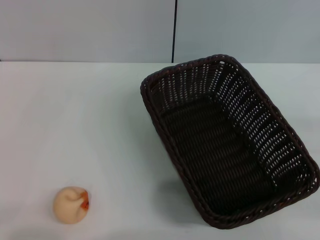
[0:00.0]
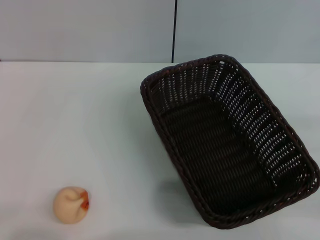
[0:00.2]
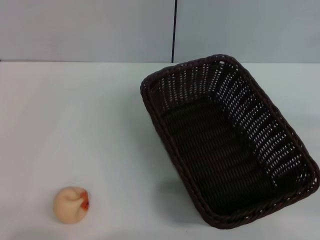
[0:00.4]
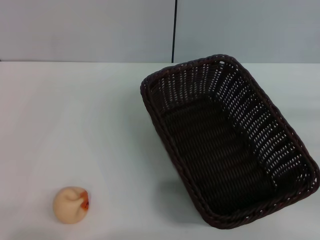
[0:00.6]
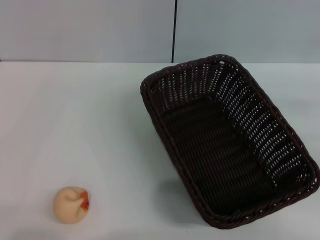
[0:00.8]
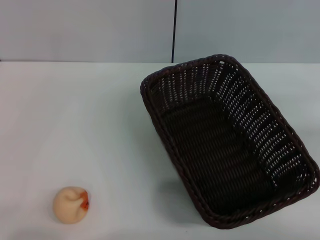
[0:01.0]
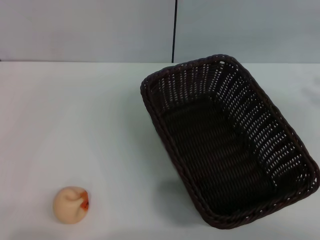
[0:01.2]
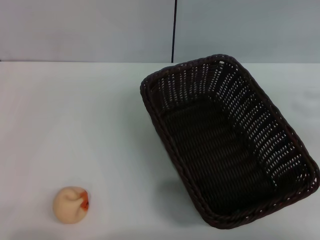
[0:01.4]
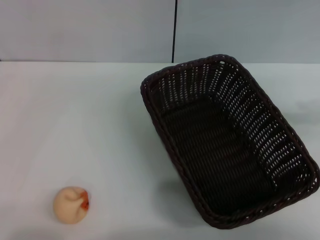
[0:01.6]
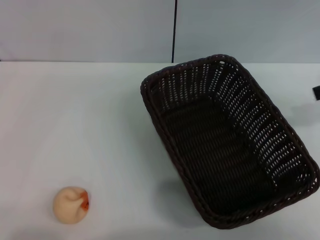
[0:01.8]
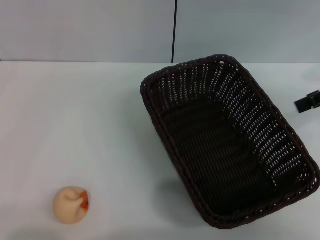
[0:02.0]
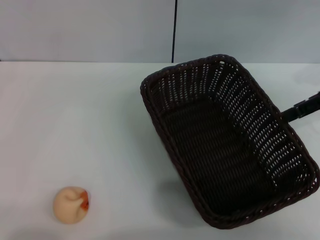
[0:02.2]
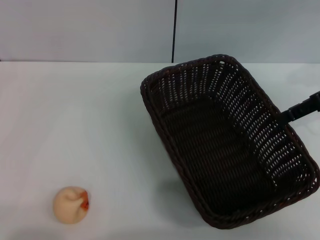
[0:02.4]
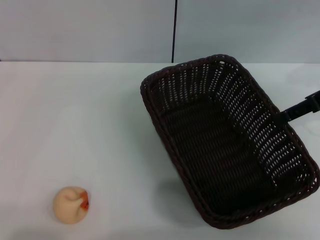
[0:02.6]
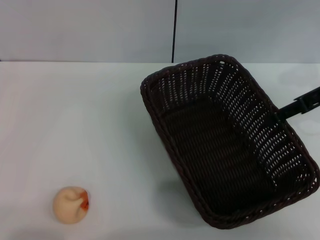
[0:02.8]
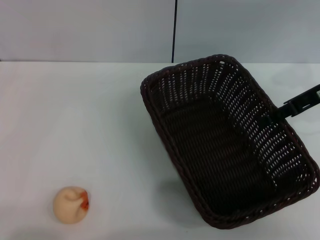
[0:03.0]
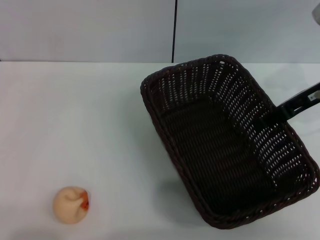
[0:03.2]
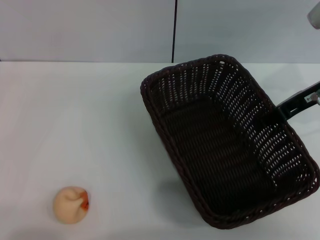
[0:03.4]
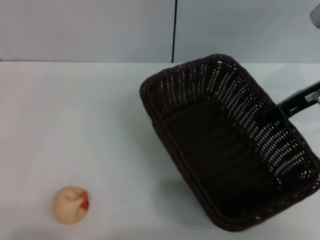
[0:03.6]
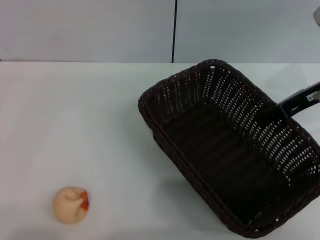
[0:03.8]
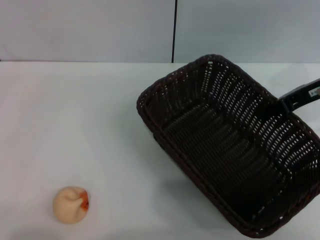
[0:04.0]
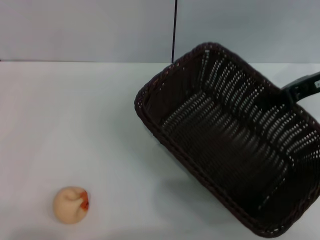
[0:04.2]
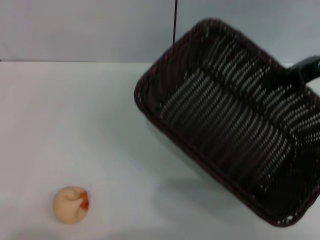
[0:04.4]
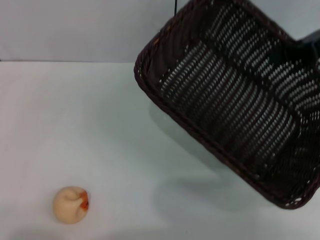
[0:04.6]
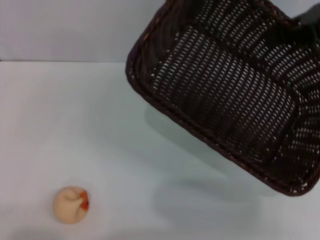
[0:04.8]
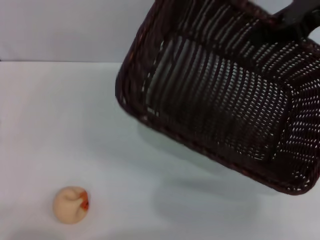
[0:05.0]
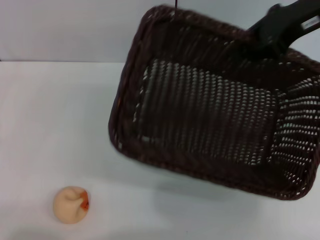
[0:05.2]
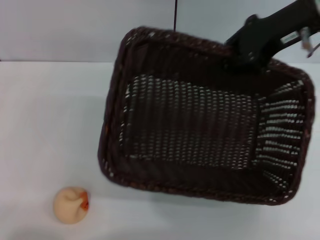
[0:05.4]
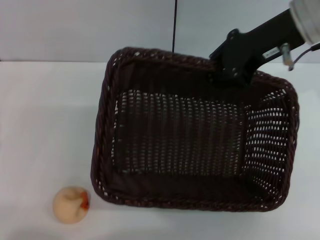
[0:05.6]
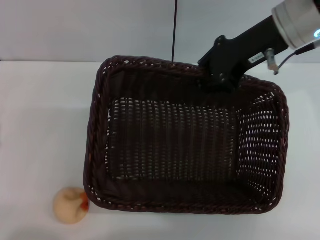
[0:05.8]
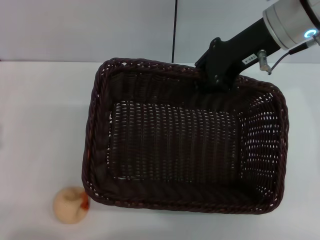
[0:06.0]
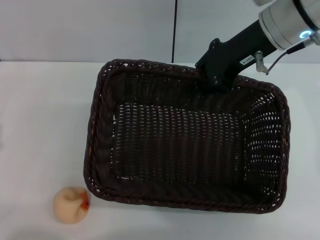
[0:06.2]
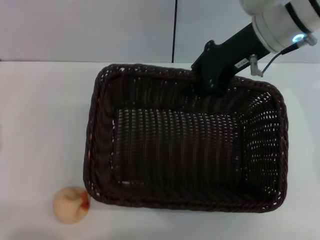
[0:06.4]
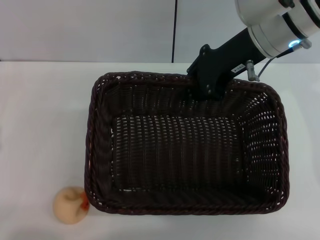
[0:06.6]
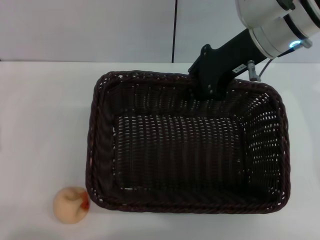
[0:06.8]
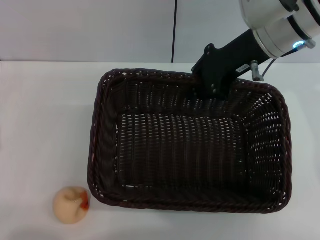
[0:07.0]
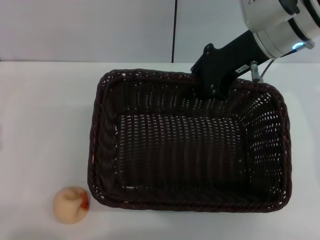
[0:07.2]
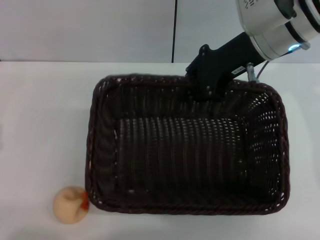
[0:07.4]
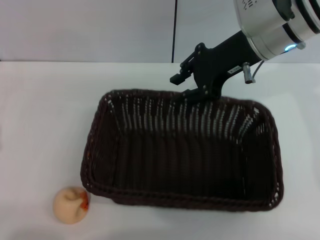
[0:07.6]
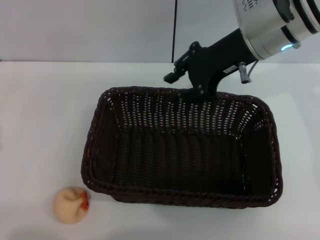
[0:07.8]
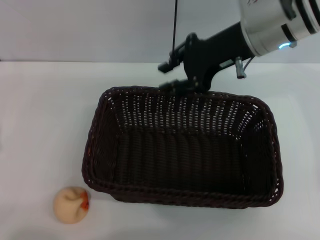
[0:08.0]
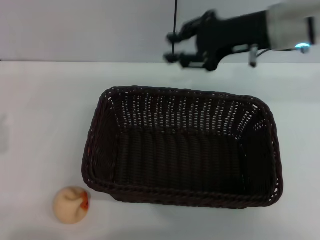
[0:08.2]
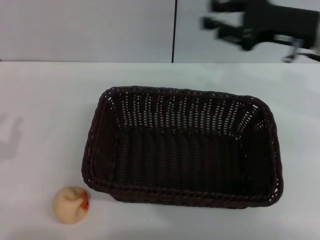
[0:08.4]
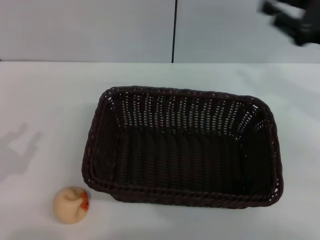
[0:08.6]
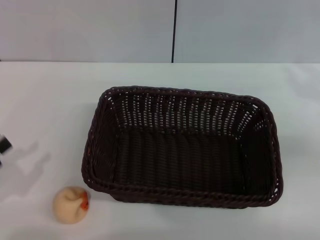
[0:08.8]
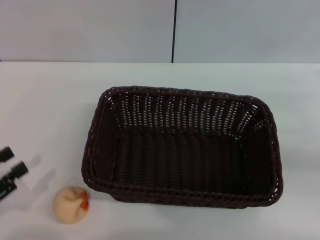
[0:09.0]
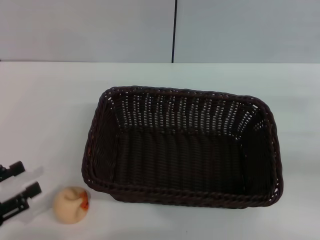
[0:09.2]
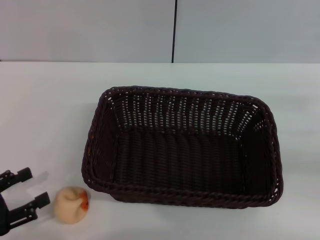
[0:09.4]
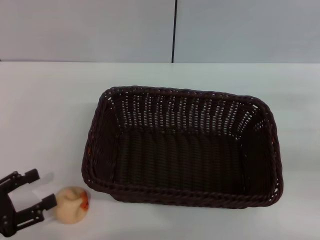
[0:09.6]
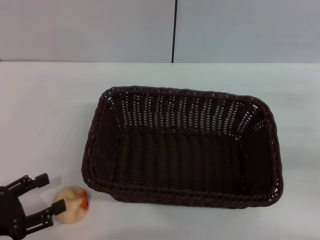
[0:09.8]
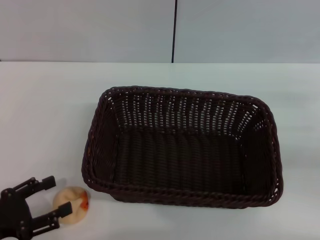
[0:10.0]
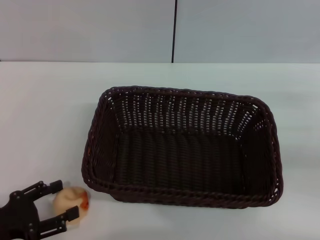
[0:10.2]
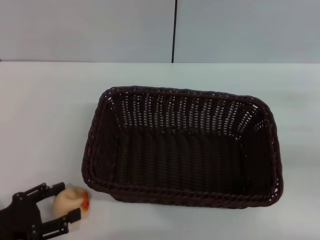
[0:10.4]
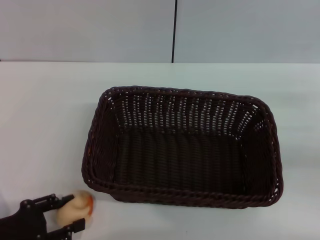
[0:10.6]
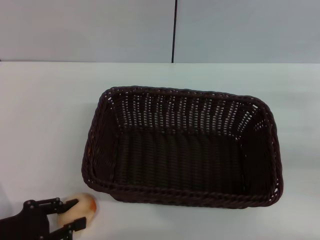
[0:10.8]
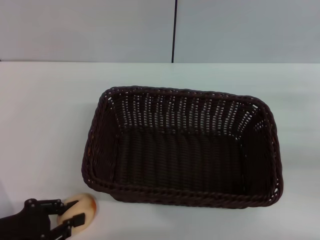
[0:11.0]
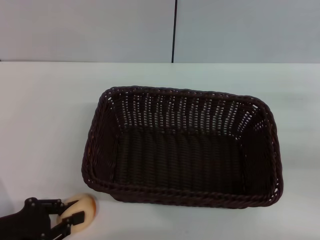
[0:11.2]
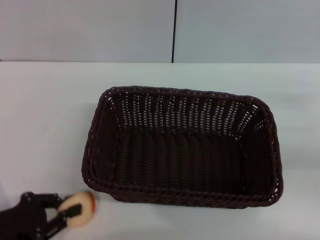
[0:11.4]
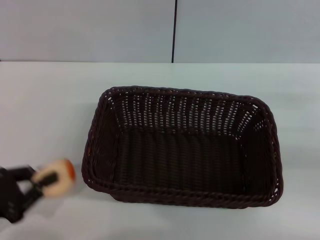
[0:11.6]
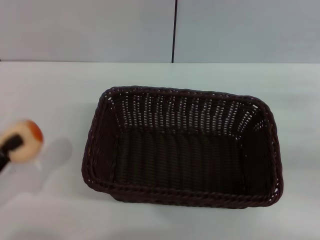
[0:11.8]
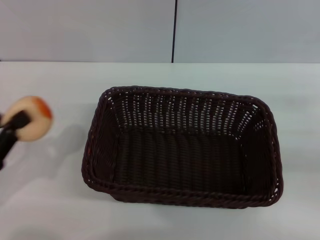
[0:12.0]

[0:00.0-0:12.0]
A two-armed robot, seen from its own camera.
Step, 0:00.0 to 0:08.0: Move the basket to the center of view with the right gripper.
Step, 0:08.2 to 0:11.6: Pick up the egg yolk pastry with the left gripper.
0:00.0 to 0:01.6: The right gripper travels upward and forward by about 20 cm.
0:01.6 to 0:03.0: The right gripper goes roughly 15 cm downward, to the left and forward.
0:03.0 to 0:04.4: The right gripper closes its fingers.
0:04.4 to 0:06.0: The right gripper moves to the left, roughly 15 cm.
0:06.0 to 0:07.6: There are only small adjustments of the grippers.
0:07.6 to 0:09.0: The right gripper goes some 30 cm to the right, backward and downward.
0:09.0 to 0:10.4: The left gripper changes place by some 5 cm, and opens its fingers.
0:10.4 to 0:12.0: The left gripper goes about 5 cm upward, and closes up.

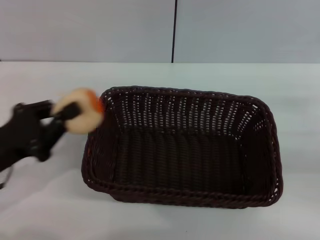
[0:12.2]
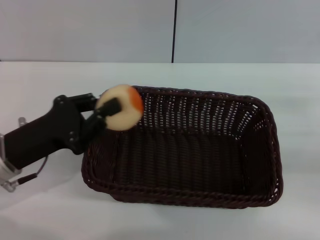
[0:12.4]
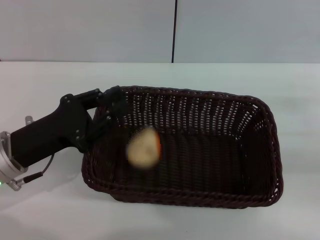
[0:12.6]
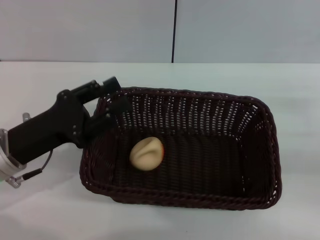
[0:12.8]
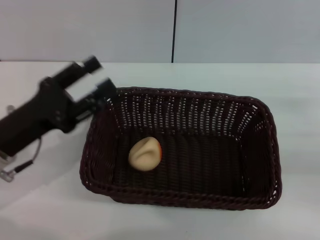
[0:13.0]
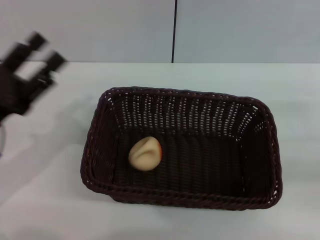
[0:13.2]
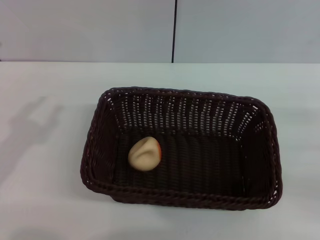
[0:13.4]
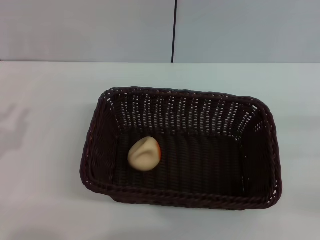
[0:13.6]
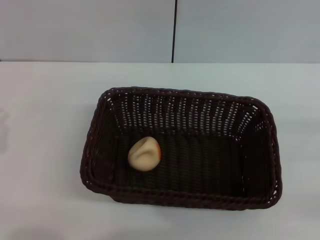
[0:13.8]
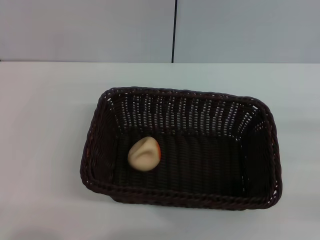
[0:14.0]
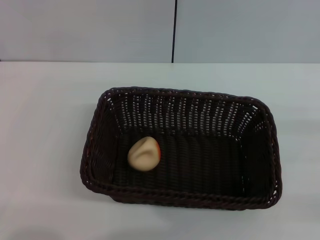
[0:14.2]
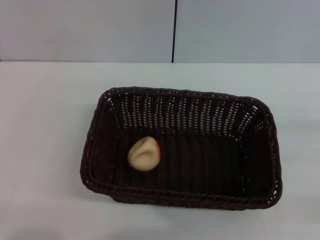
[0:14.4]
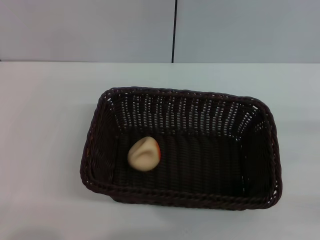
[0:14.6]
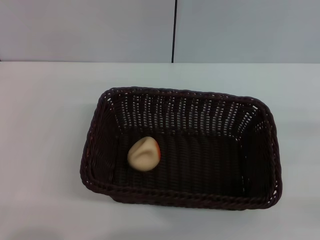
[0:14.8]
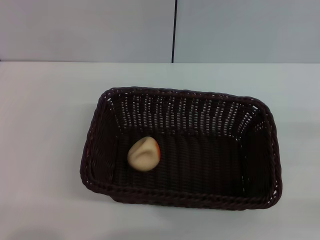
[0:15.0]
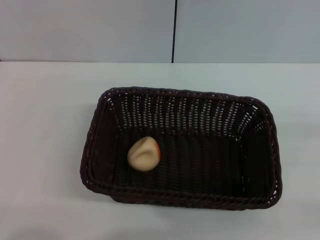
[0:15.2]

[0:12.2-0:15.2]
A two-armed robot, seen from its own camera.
Step, 0:12.2 to 0:12.8: Place the egg yolk pastry into the basket with the left gripper.
0:12.2 to 0:13.8: The left gripper heads to the left and backward, covering some 10 cm, and opens. Meanwhile the right gripper goes roughly 5 cm backward.

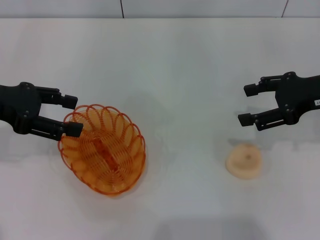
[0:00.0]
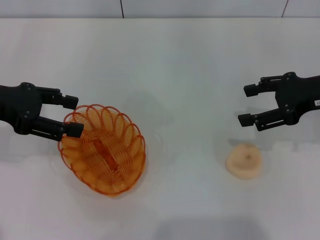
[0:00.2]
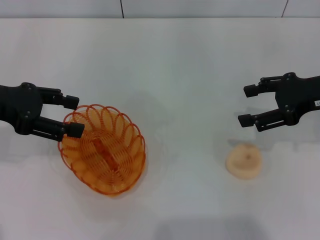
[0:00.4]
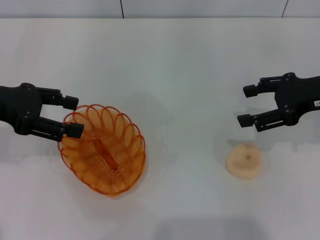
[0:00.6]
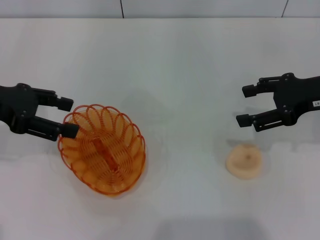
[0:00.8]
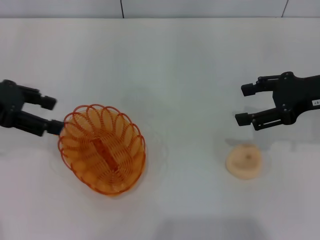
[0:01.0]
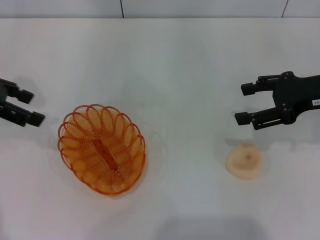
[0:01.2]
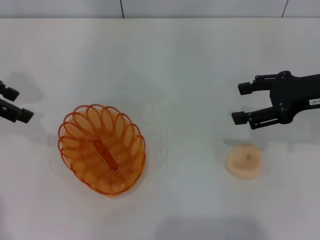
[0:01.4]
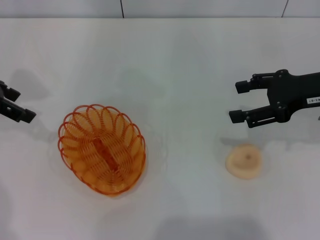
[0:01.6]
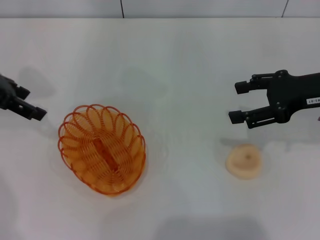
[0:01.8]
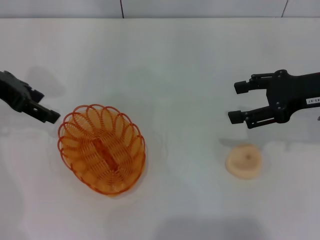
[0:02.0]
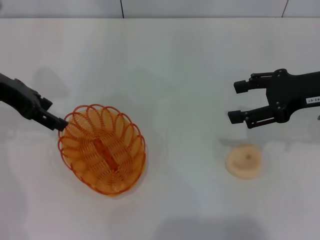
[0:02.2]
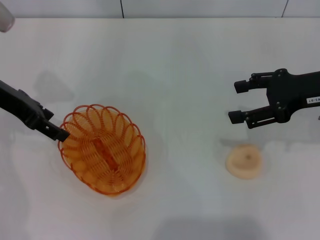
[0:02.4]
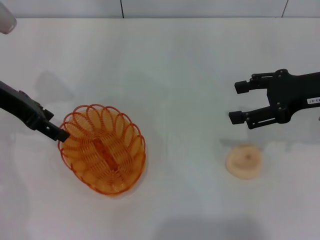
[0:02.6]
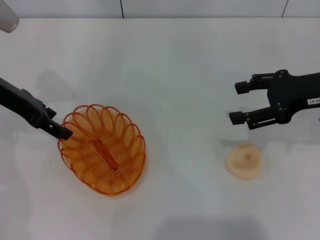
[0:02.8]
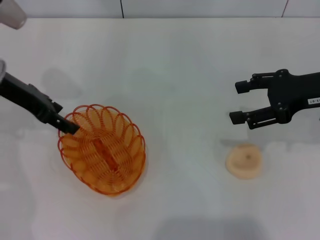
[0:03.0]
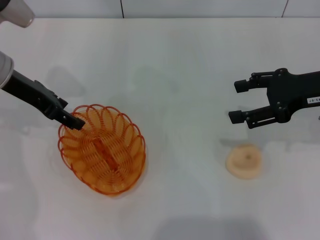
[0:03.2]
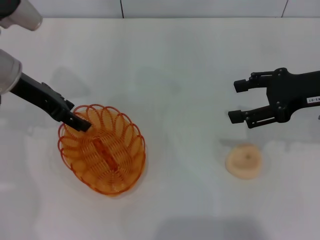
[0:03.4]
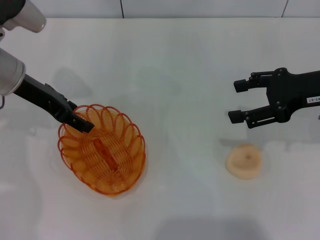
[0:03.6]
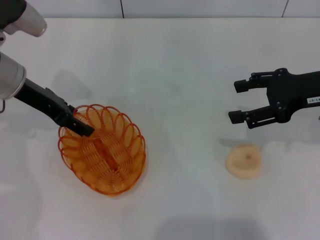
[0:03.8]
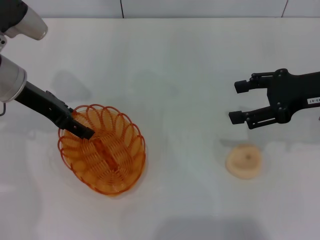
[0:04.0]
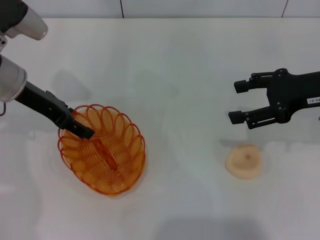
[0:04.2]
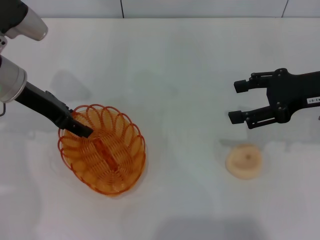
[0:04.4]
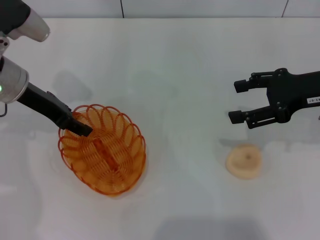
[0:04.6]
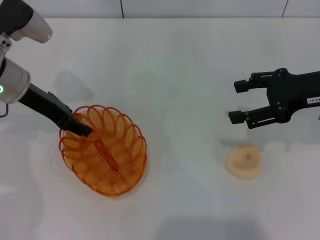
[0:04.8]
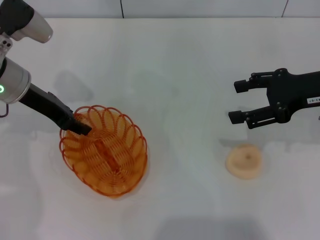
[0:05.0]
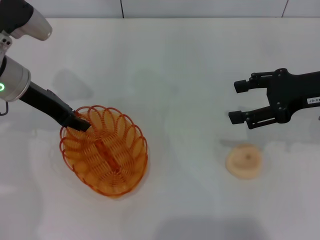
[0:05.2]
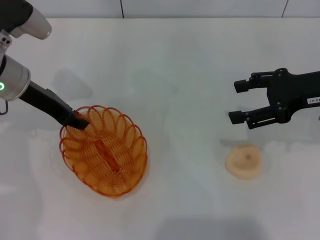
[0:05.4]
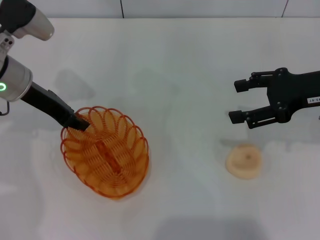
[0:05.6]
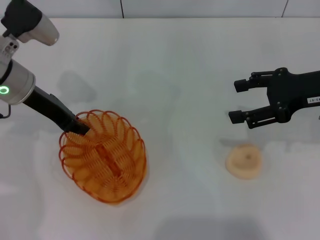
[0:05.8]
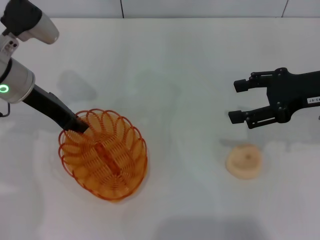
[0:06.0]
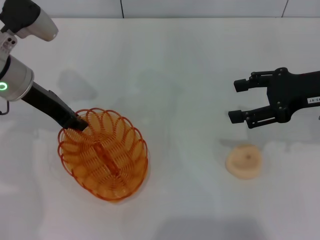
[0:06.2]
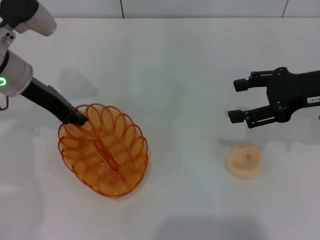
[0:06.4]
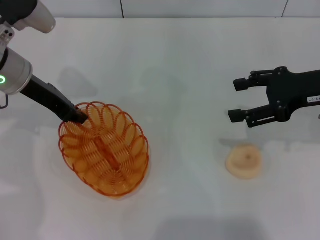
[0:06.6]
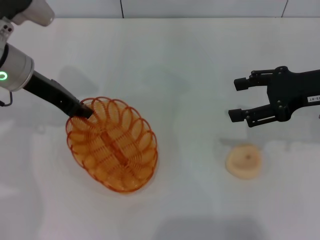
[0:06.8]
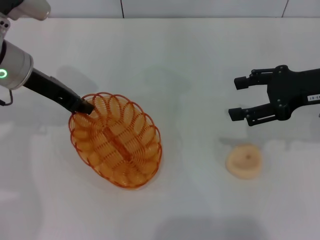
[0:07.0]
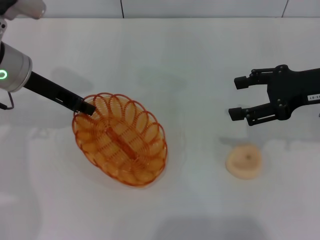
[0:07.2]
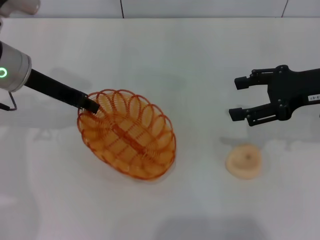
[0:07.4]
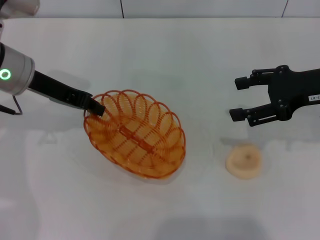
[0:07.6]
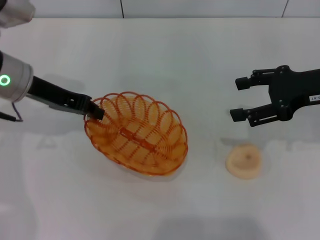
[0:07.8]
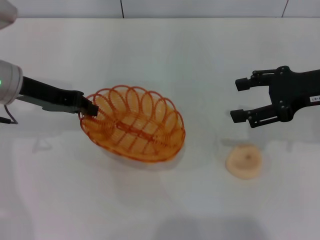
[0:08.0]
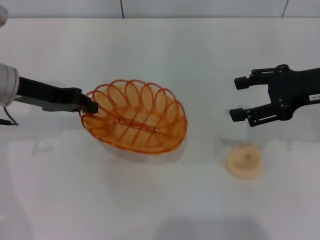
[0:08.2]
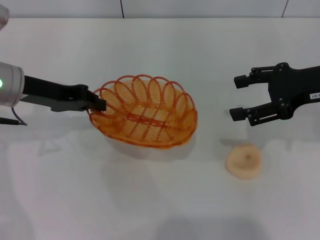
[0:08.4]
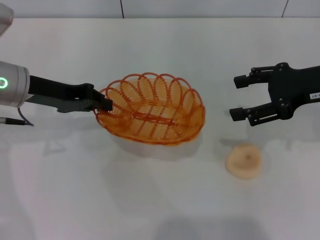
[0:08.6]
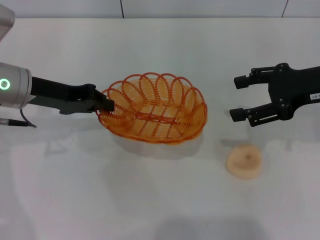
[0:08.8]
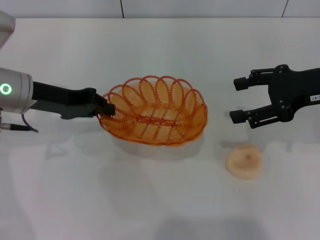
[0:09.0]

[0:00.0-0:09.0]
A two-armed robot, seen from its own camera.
Step, 0:00.0 to 0:06.6: Pick up the basket with the left gripper.
0:00.0 to 0:01.6: The left gripper changes place by approximately 5 cm.
0:01.6 to 0:03.0: The left gripper is displaced to the right by roughly 5 cm.
0:03.0 to 0:04.4: The grippers move only a little.
0:04.4 to 0:06.0: The left gripper closes up.
